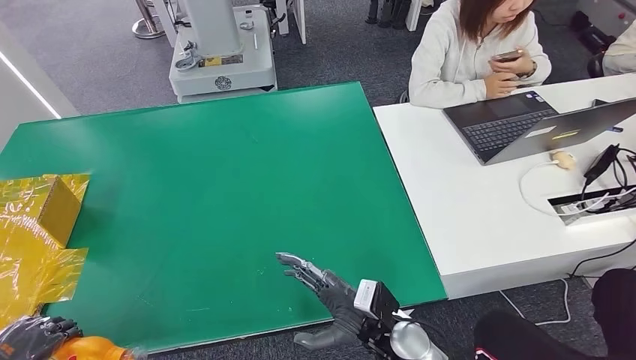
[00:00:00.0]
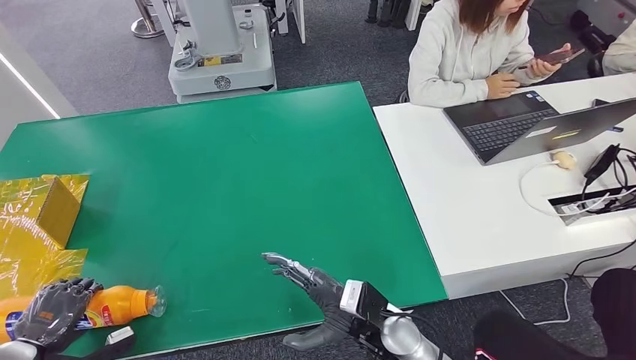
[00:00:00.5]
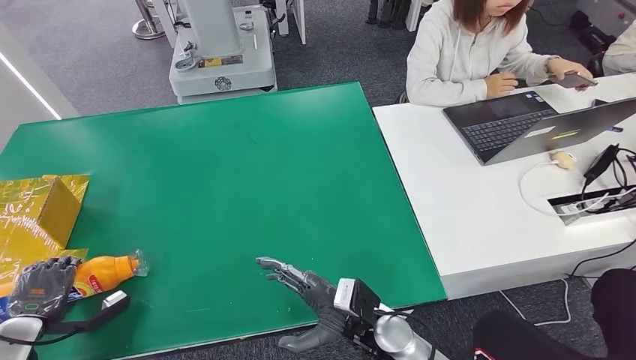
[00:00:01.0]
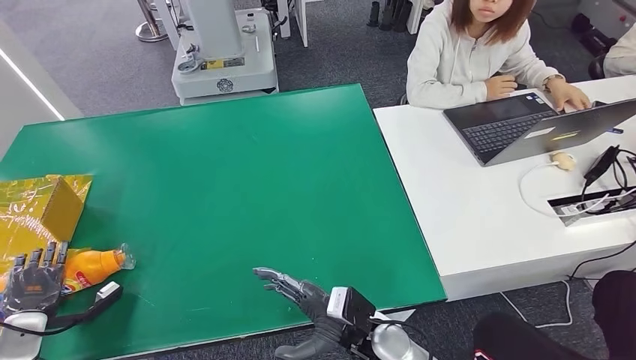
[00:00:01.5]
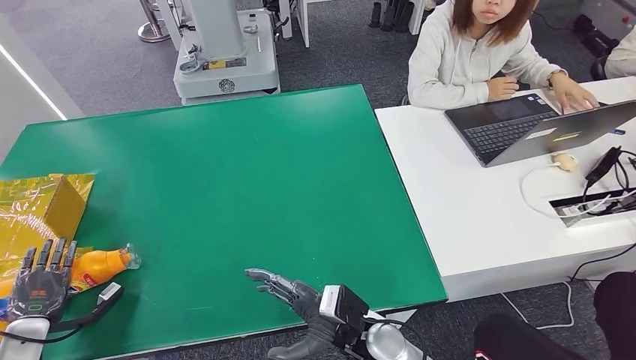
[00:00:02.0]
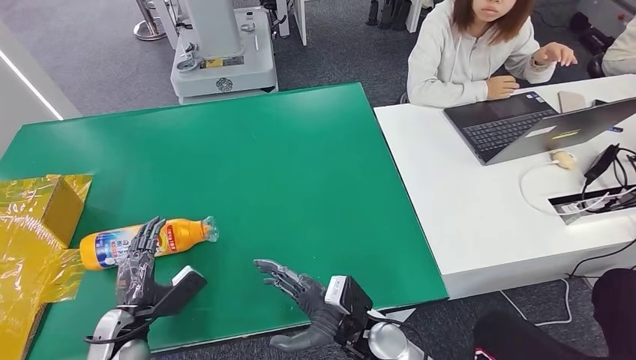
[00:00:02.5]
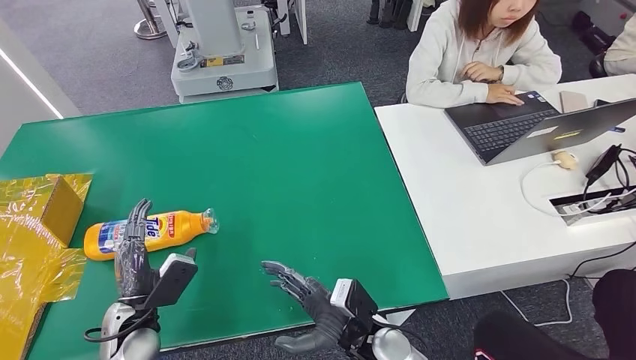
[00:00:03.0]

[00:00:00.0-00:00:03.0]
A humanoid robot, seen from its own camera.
Step, 00:00:00.0 to 00:00:03.0: Turn the bottle to the front side.
00:00:00.0 to 00:00:01.5: The left hand moves downward, about 15 cm.
00:00:01.5 to 00:00:03.0: The left hand is displaced to the right by roughly 20 cm.

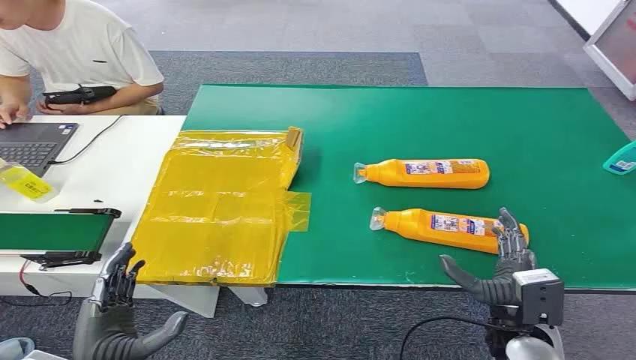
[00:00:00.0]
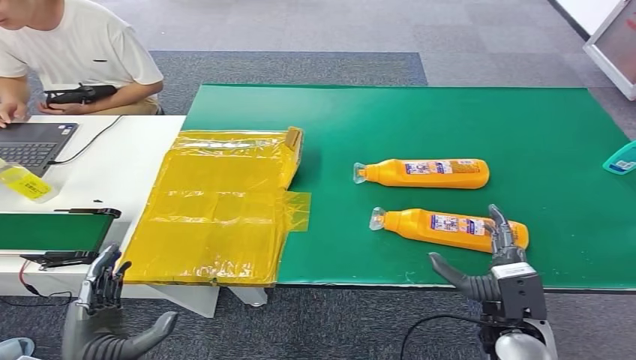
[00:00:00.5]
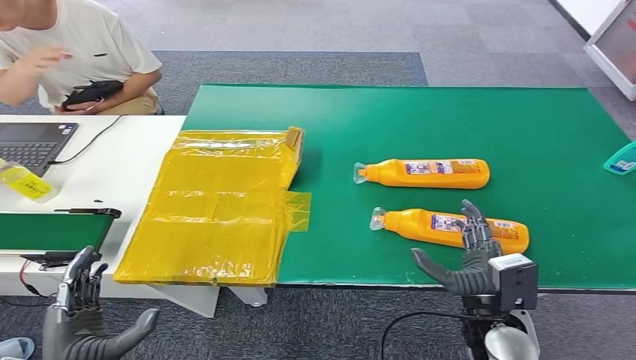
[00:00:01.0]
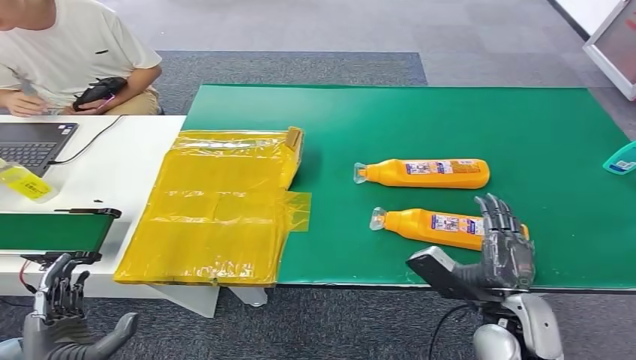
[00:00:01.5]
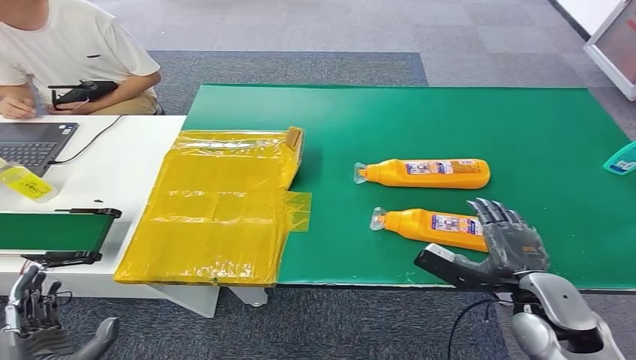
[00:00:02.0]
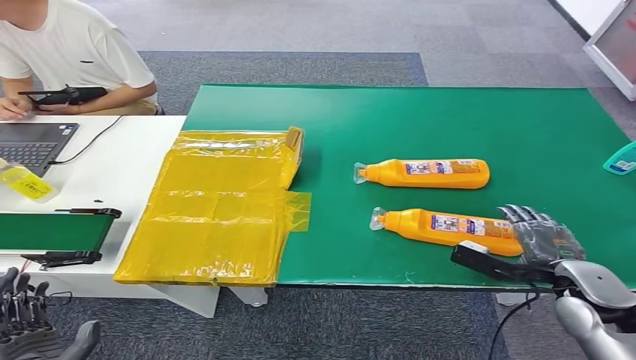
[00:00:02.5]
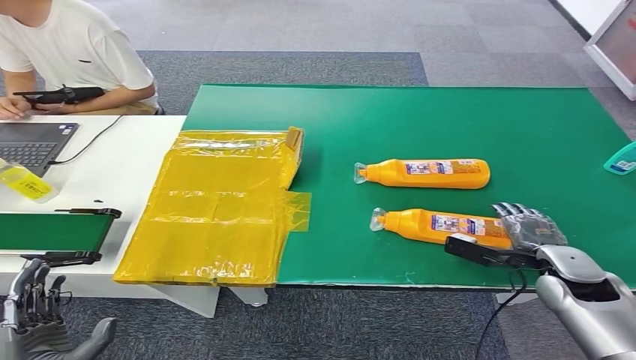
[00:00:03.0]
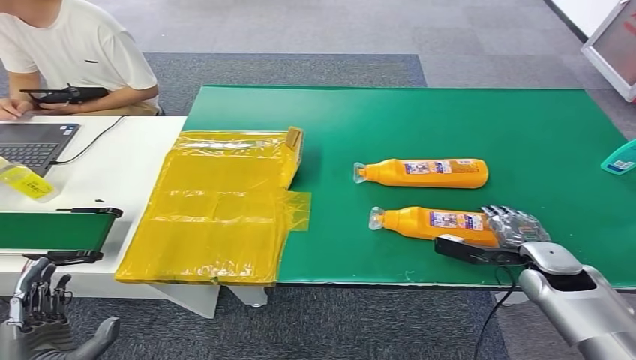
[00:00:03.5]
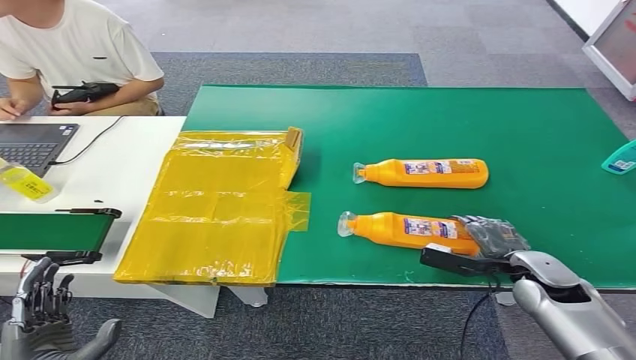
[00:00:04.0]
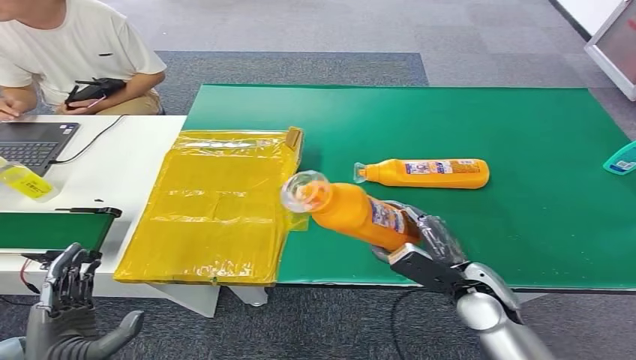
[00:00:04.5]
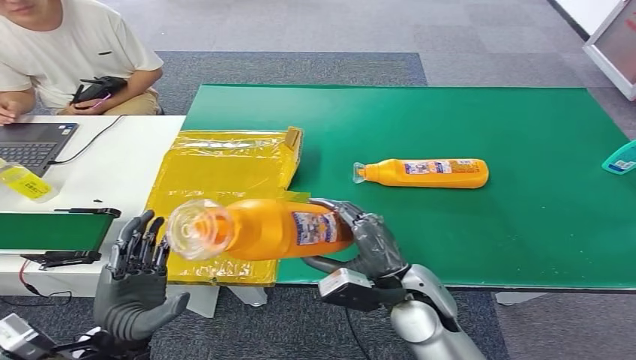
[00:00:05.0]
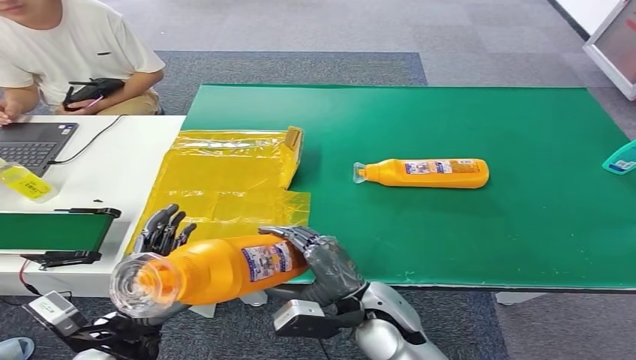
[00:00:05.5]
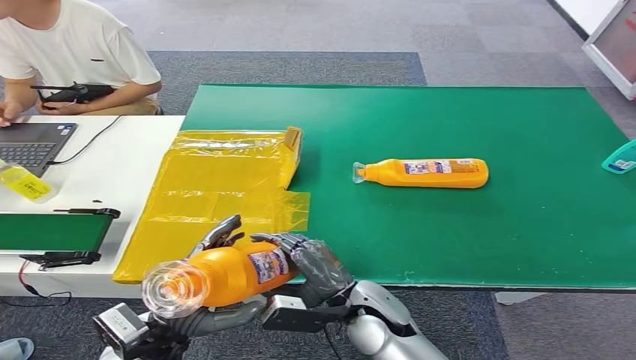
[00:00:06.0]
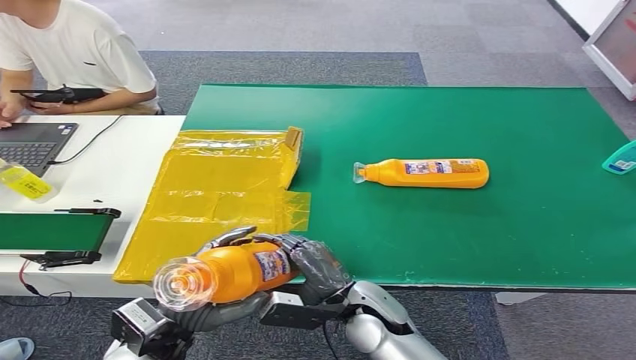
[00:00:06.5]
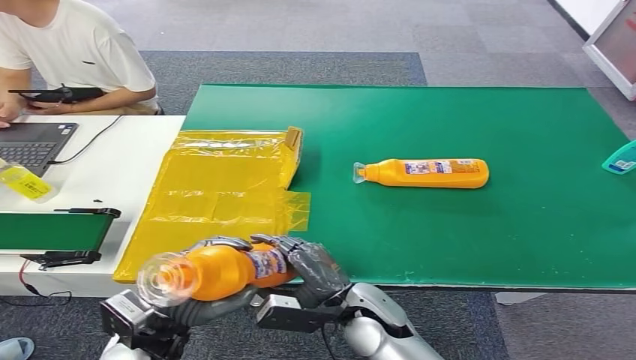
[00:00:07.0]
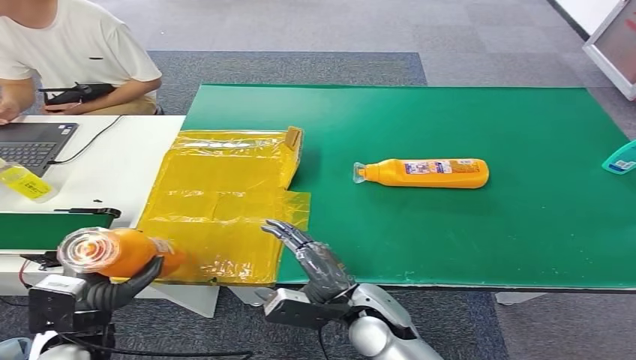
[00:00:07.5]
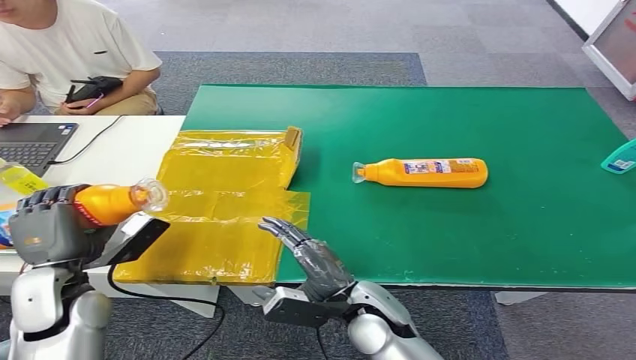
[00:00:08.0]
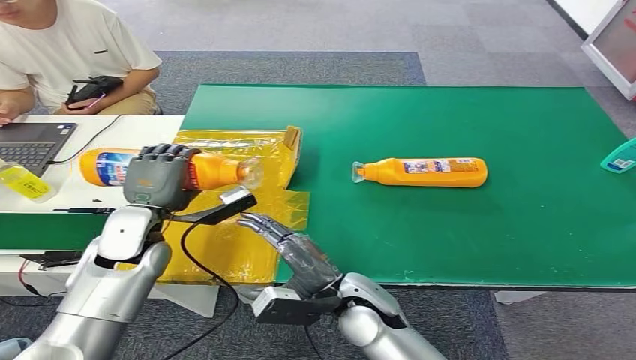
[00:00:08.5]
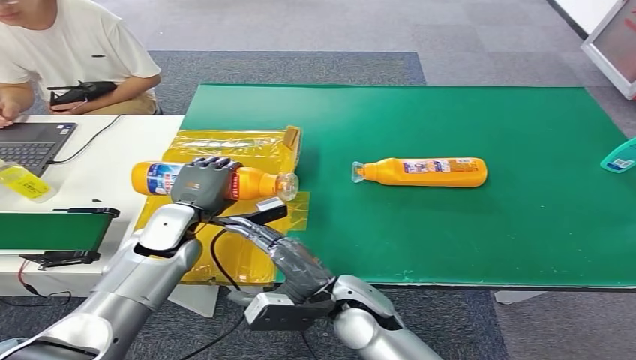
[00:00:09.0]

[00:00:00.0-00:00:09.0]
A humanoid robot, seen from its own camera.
Step, 00:00:00.0 to 00:00:04.5: Pick up the bottle from the table.
00:00:02.0 to 00:00:04.5: The right hand goes about 5 cm to the left.
00:00:07.0 to 00:00:09.0: The left hand travels forward by roughly 20 cm.

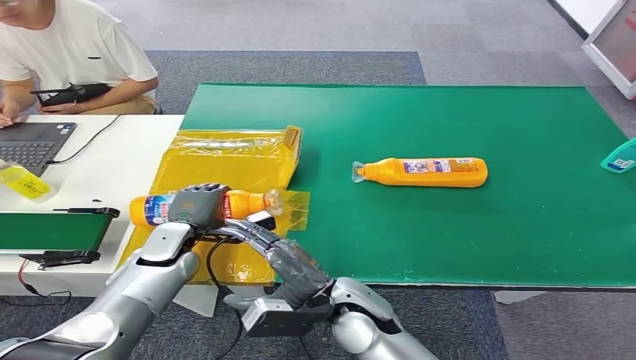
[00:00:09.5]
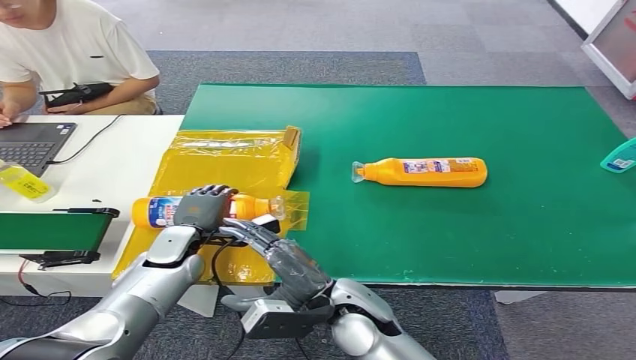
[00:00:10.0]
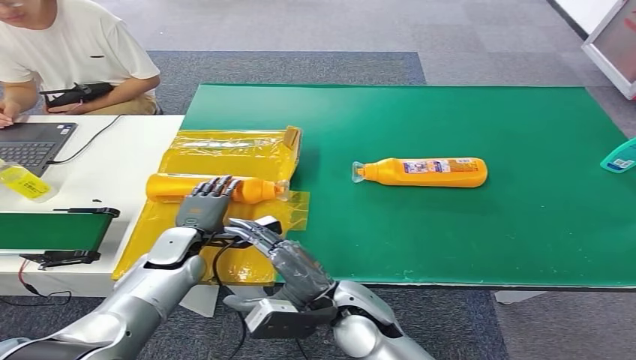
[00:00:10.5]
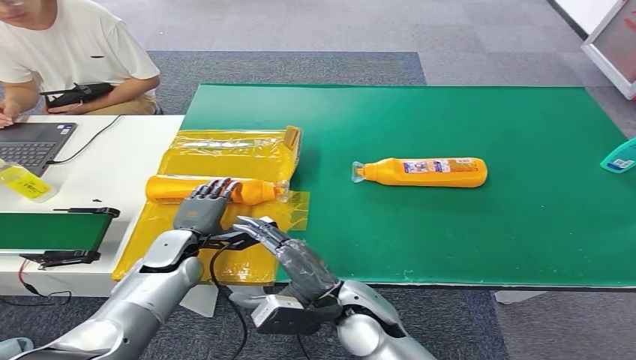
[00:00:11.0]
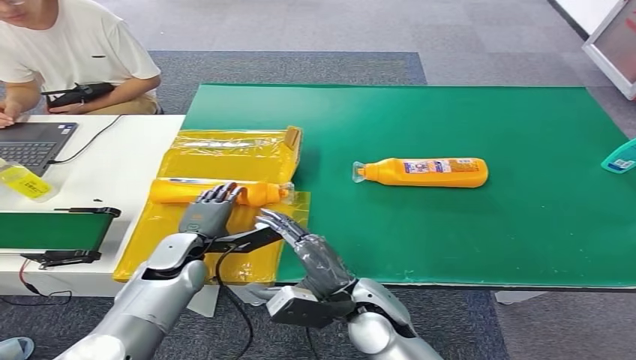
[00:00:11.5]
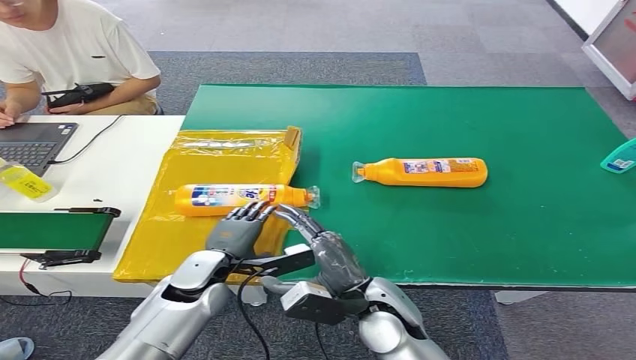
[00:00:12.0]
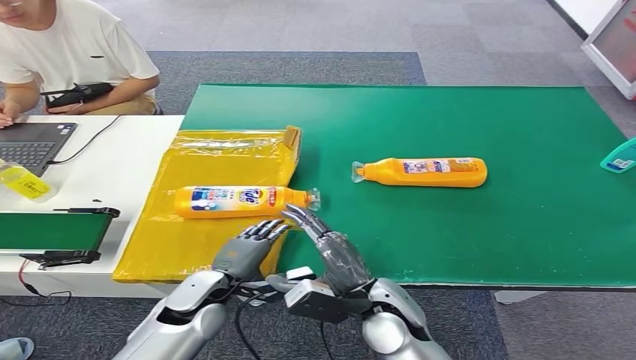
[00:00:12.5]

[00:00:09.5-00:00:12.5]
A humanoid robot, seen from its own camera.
Step, 00:00:09.5 to 00:00:12.5: Turn the bottle to the front side.
00:00:09.5 to 00:00:11.0: There are only small adjustments of the hands.
00:00:11.0 to 00:00:12.5: The left hand shifts roughly 10 cm backward and to the right.
